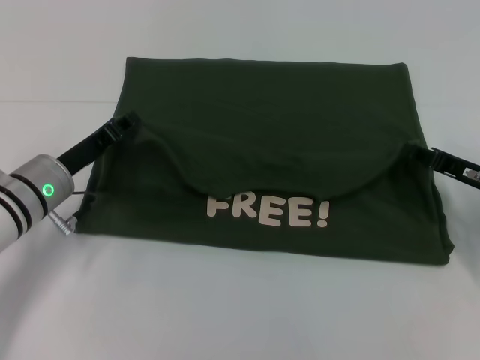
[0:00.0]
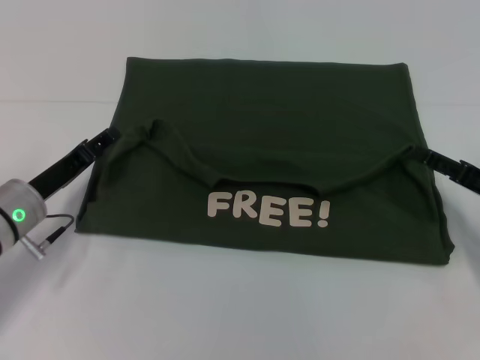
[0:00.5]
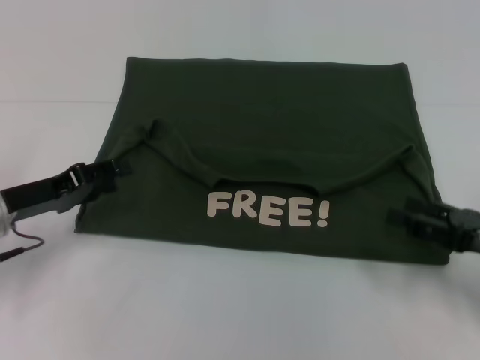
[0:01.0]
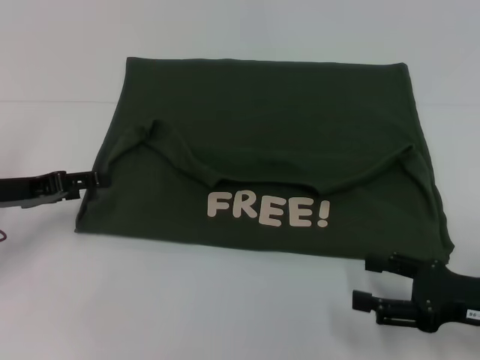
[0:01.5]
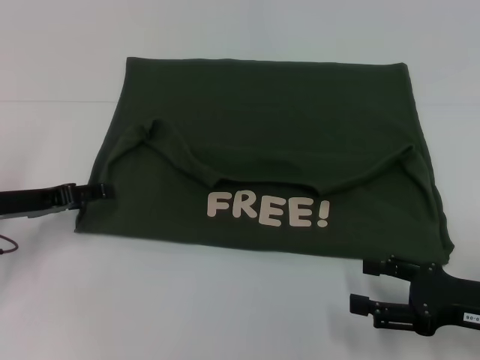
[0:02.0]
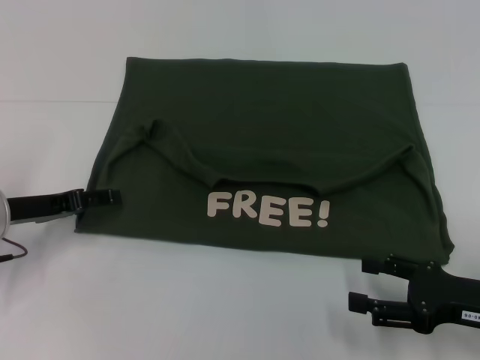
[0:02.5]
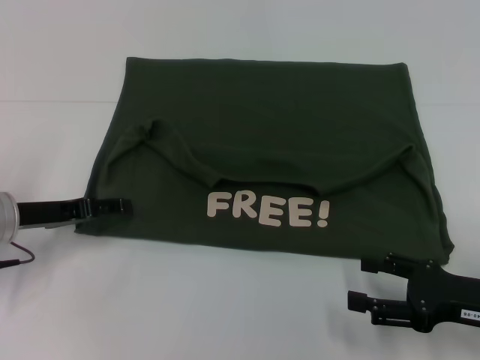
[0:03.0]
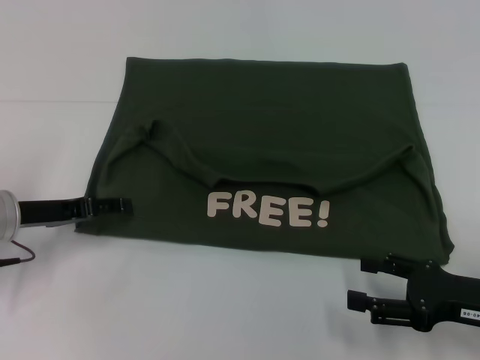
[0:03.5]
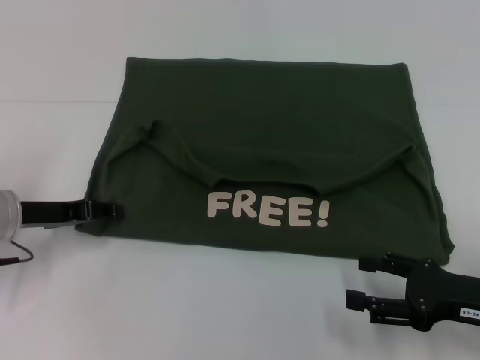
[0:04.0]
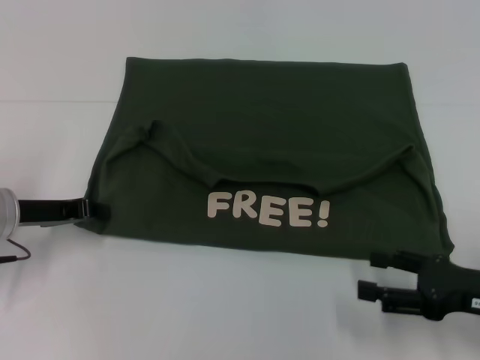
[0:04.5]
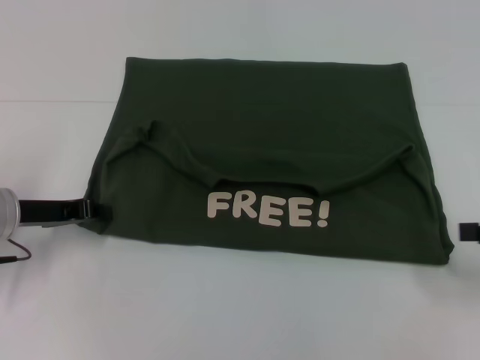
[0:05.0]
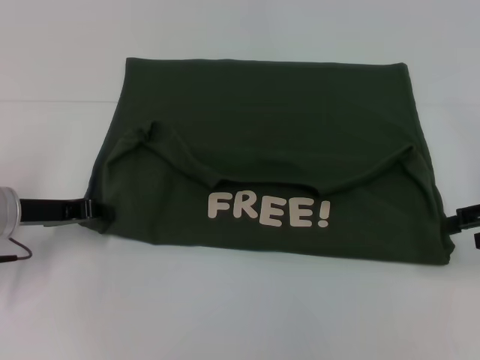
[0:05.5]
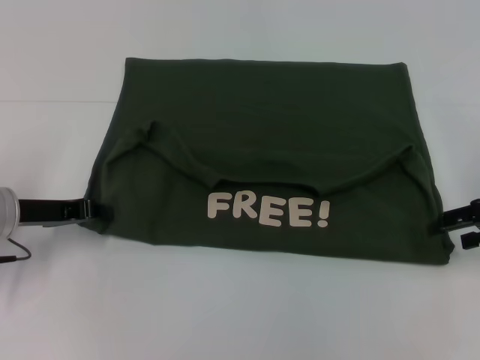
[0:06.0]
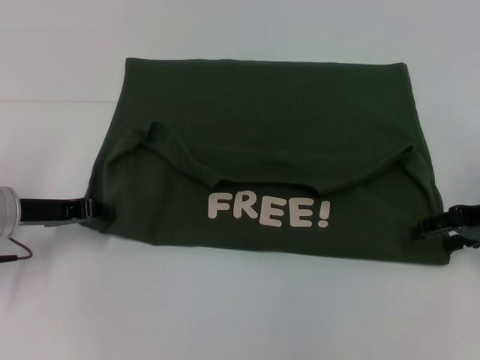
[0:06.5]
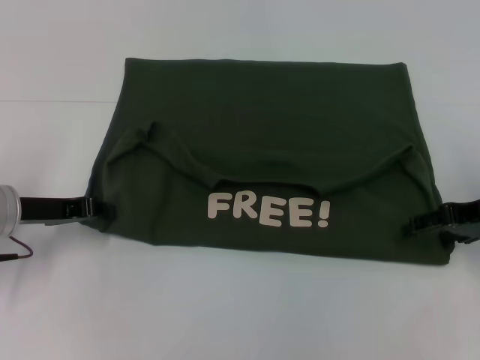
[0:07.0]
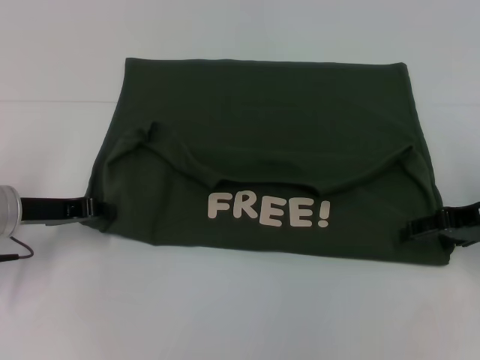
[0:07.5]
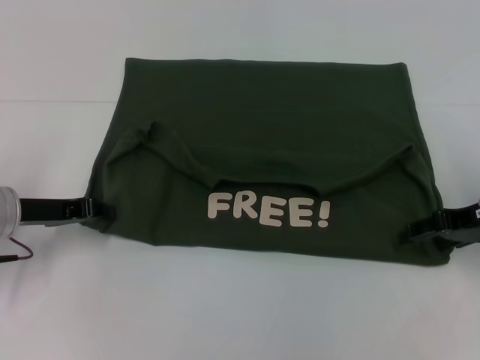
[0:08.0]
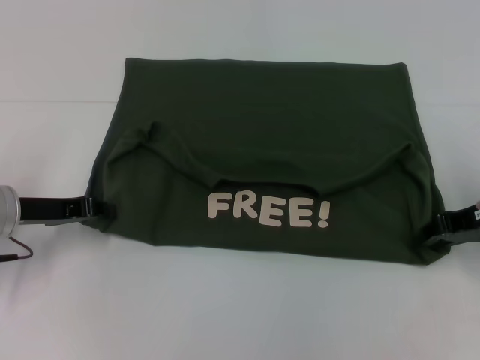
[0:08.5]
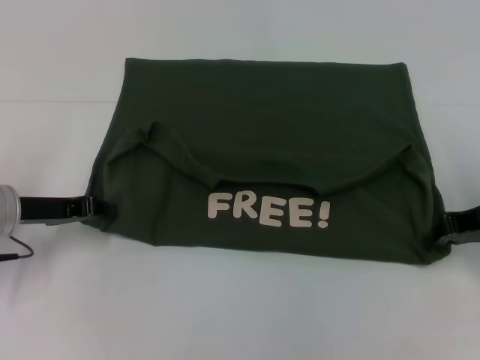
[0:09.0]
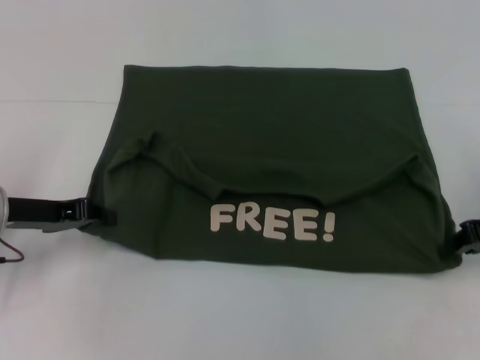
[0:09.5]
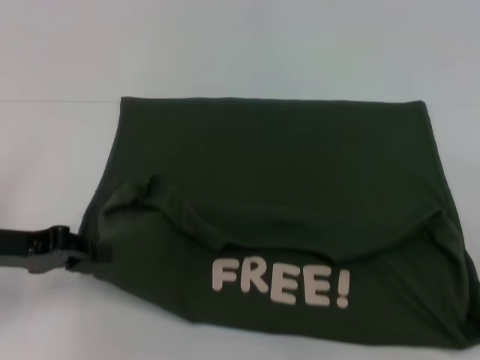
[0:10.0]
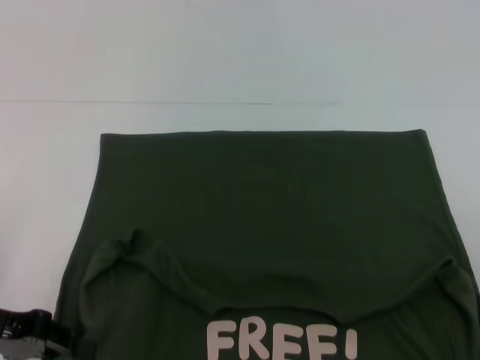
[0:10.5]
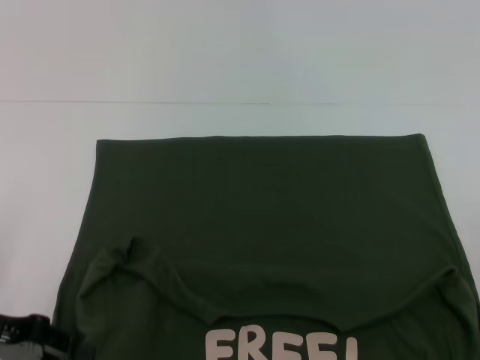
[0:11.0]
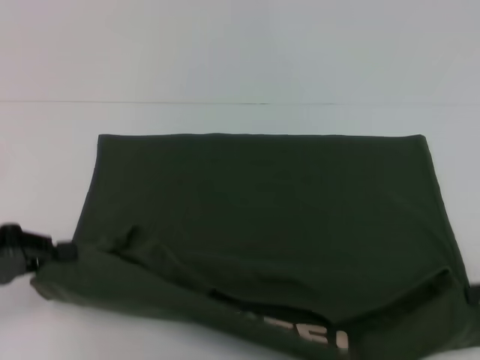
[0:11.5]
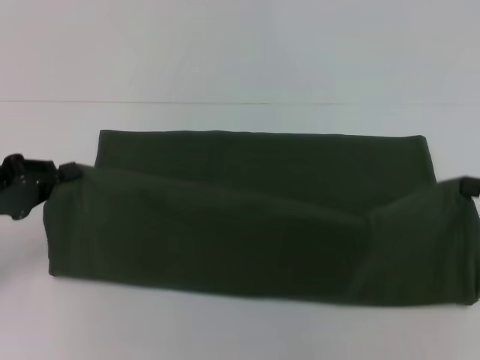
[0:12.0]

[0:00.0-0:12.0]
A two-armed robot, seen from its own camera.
Step, 0:00.5 to 0:10.5: Pull the clothes with your left hand.
Step, 0:00.5 to 0:10.5: Pull the clothes with your right hand.
0:00.0 to 0:02.0: The right gripper travels backward by roughly 10 cm, and opens. Meanwhile the left gripper travels to the left by roughly 10 cm, and opens.
0:02.0 to 0:04.0: The grippers stay close to where they were, moving slightly.
0:04.0 to 0:06.0: The right gripper heads forward and upward, covering about 15 cm, while the left gripper closes up.
0:06.0 to 0:08.0: The grippers move only a little.
0:08.0 to 0:10.0: The right gripper heads backward, covering about 5 cm, and closes up; the left gripper shifts by about 5 cm.

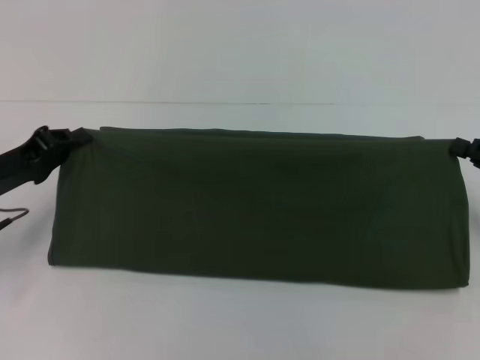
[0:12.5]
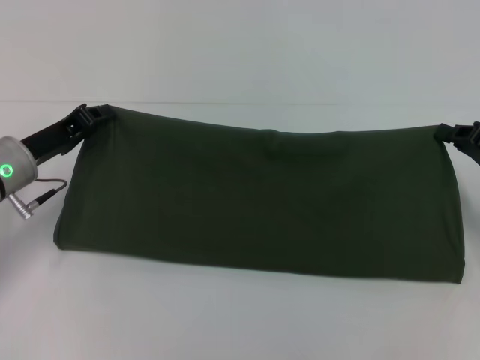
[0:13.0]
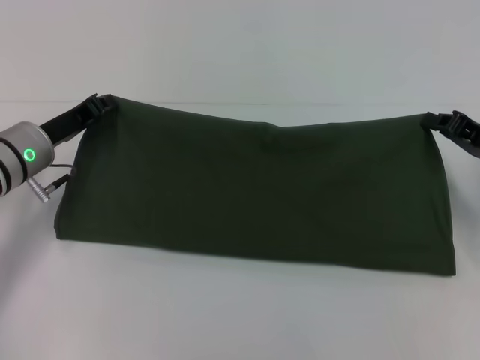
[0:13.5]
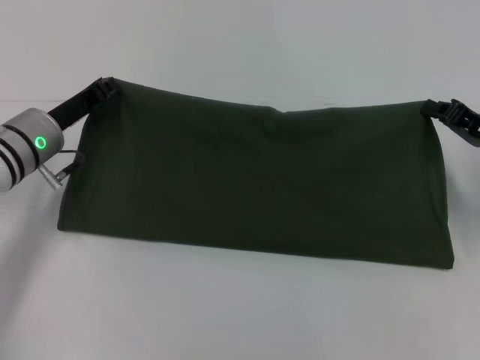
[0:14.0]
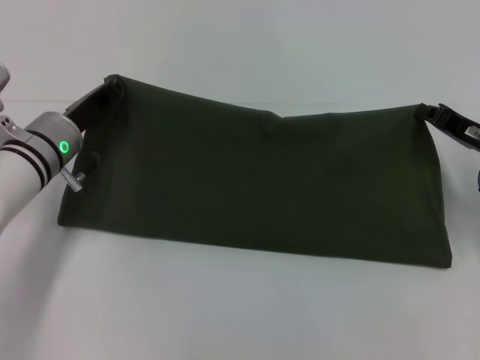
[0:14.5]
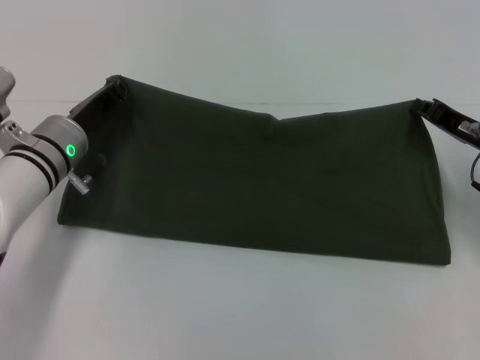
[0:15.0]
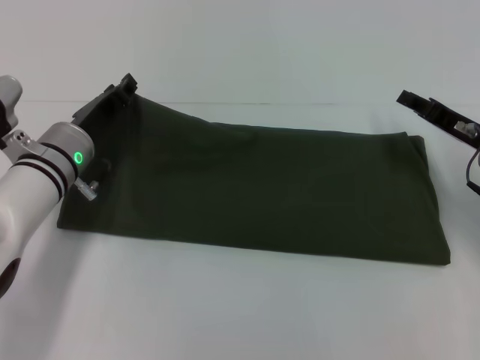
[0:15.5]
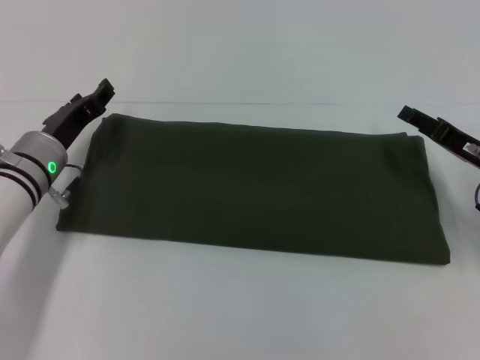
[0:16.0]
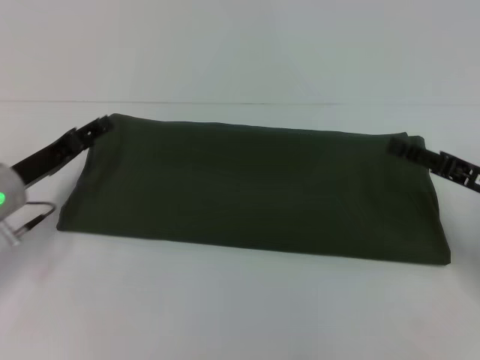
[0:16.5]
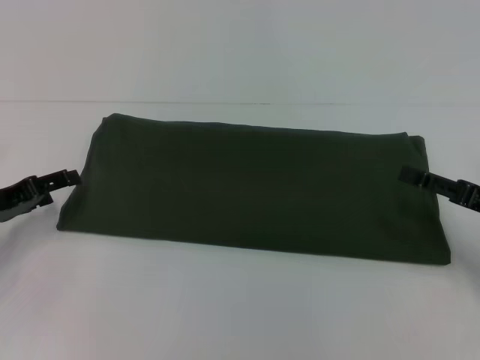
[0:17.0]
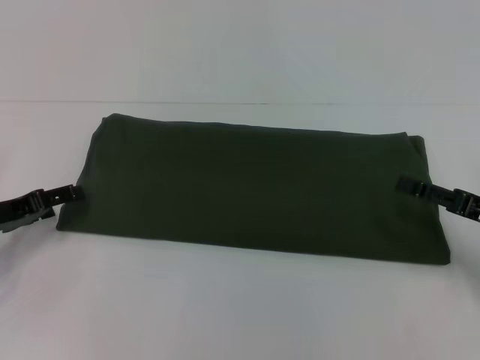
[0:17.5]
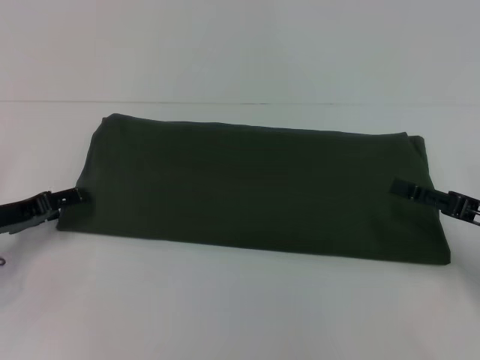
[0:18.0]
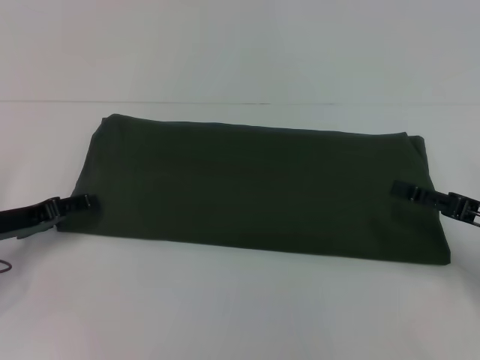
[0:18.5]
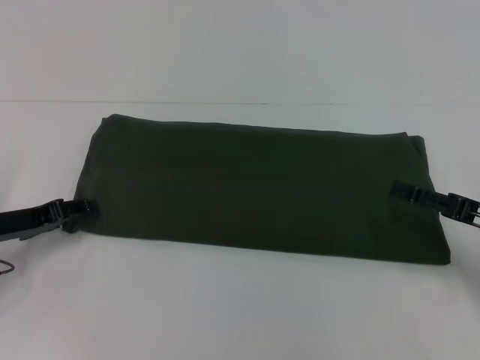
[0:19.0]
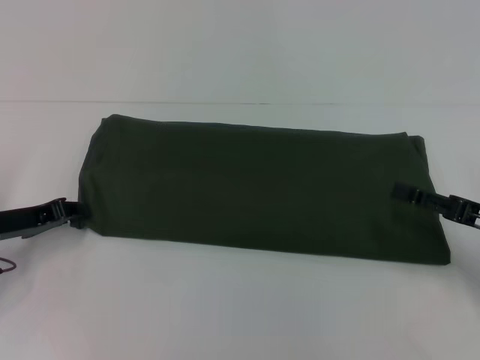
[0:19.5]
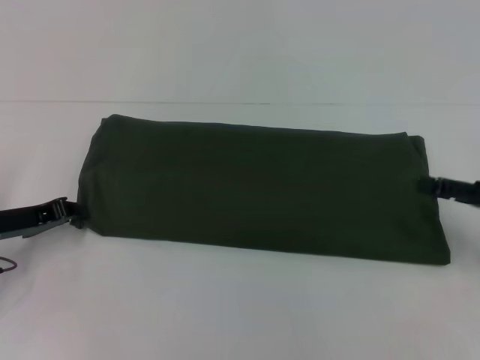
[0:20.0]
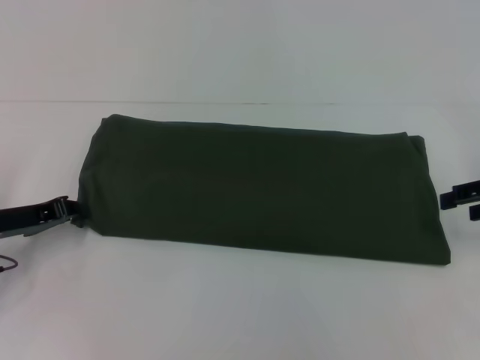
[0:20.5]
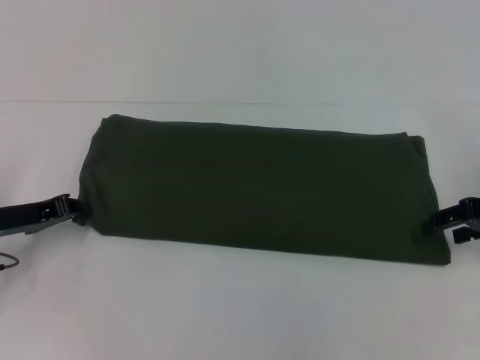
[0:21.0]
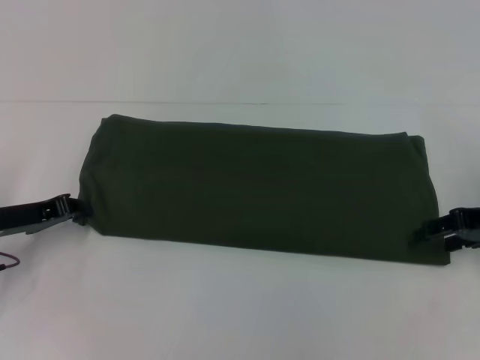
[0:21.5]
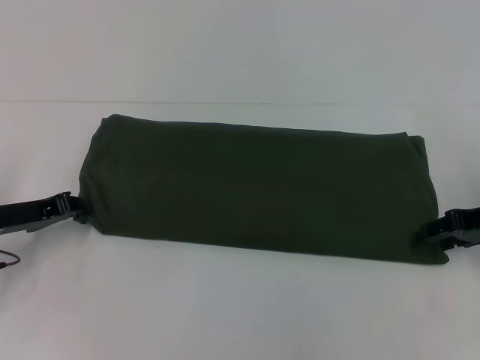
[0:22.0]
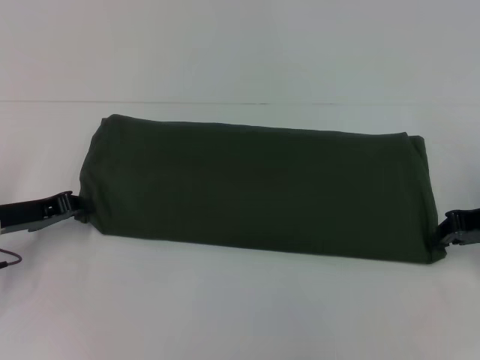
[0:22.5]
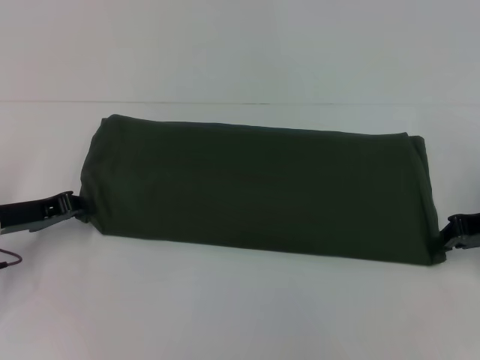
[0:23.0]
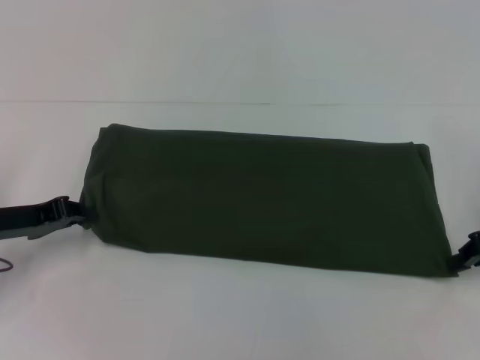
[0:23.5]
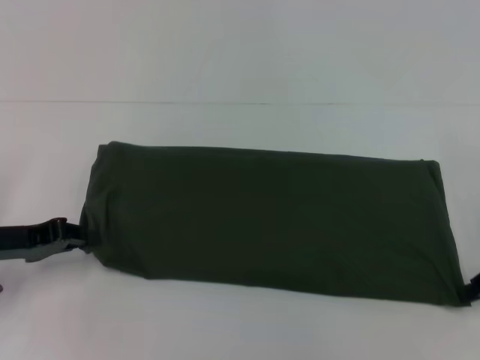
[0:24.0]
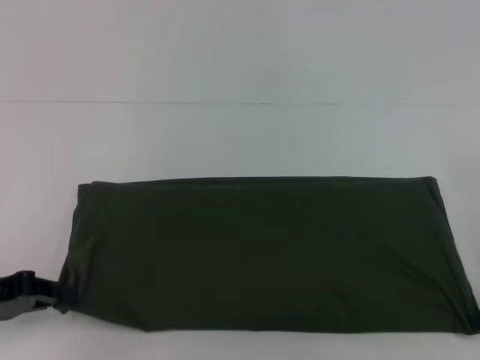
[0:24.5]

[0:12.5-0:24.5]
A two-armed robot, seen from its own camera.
Step, 0:12.5 to 0:15.5: Fold the clothes with your right hand.
0:12.5 to 0:14.5: The left gripper goes approximately 10 cm to the right and forward; the right gripper heads to the left and forward, covering approximately 10 cm.
0:14.5 to 0:16.5: The right gripper shifts about 5 cm backward, and opens its fingers. Meanwhile the left gripper travels to the left and backward by some 10 cm, and opens up.
0:18.5 to 0:20.5: The left gripper closes its fingers. Meanwhile the right gripper is displaced upward and forward by some 10 cm.
0:20.5 to 0:22.5: The right gripper changes place by roughly 5 cm, and closes.
0:22.5 to 0:24.5: Both grippers move backward, some 5 cm.

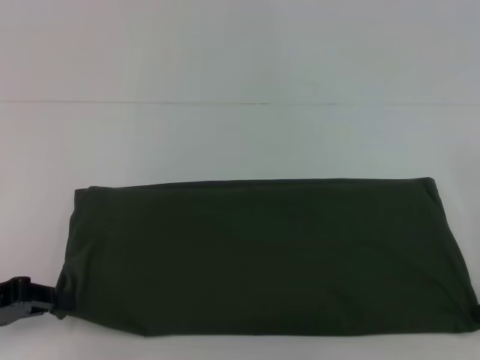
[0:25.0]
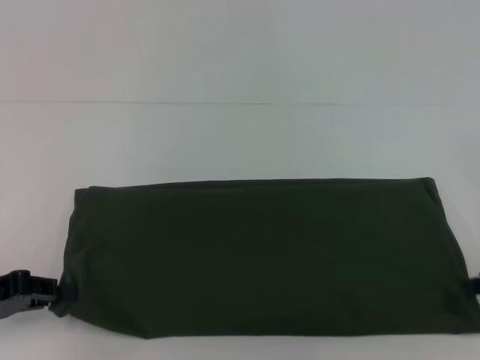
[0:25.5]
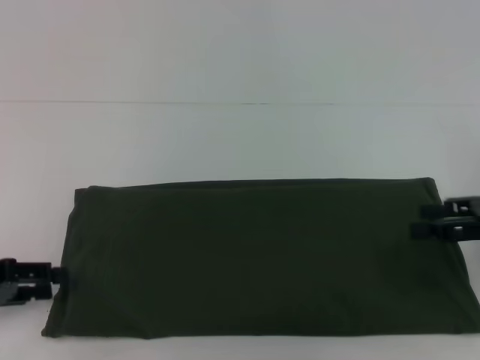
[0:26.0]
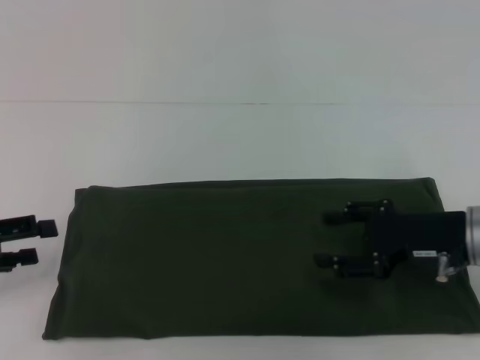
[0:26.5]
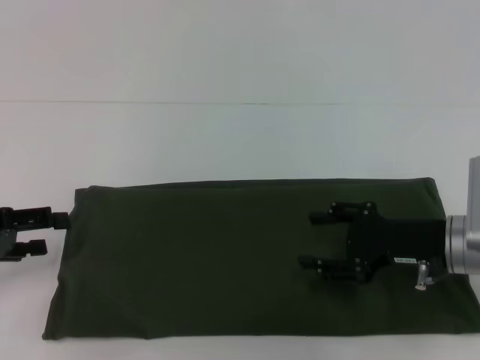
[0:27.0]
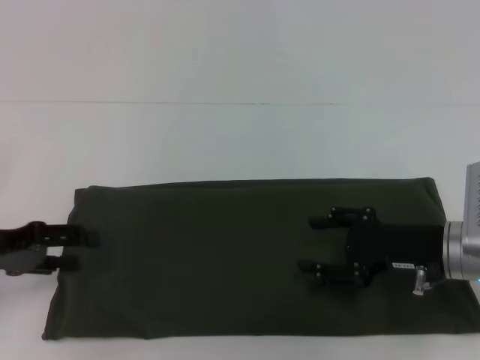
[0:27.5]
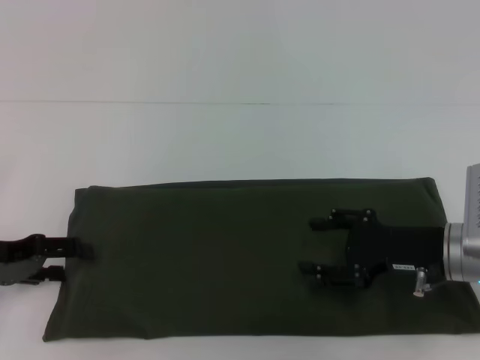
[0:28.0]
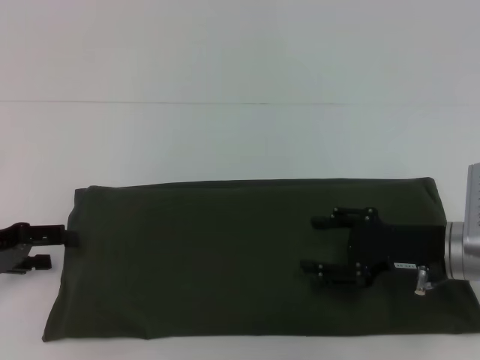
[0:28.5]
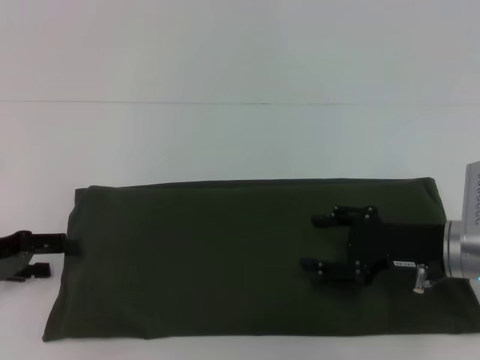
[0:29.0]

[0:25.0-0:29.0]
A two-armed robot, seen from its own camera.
0:25.0 to 0:27.0: The right gripper is displaced to the left by some 10 cm, and opens, while the left gripper changes place by some 5 cm, and opens.
0:27.0 to 0:29.0: The grippers make only small movements.
